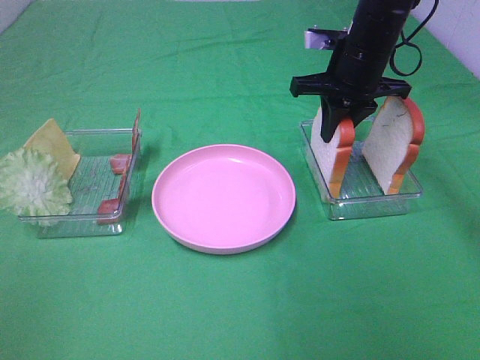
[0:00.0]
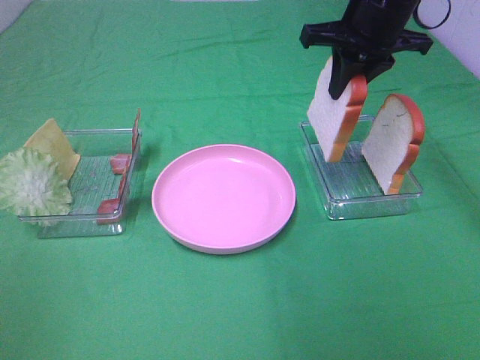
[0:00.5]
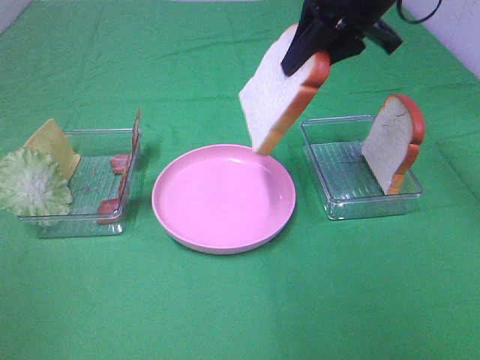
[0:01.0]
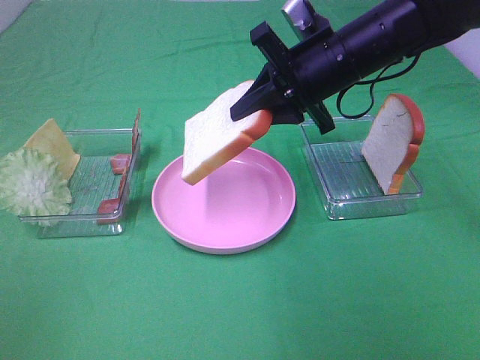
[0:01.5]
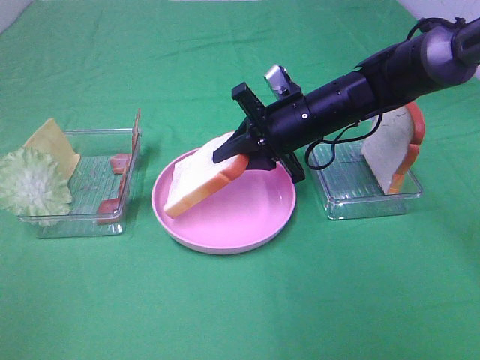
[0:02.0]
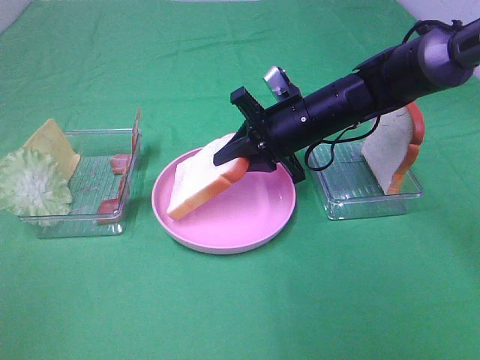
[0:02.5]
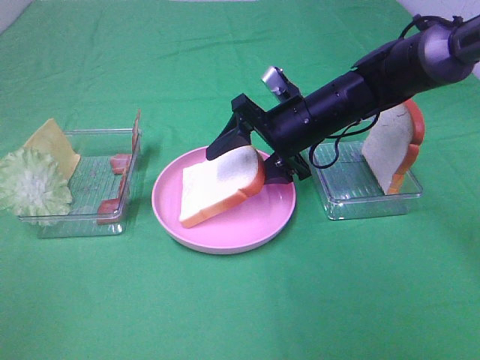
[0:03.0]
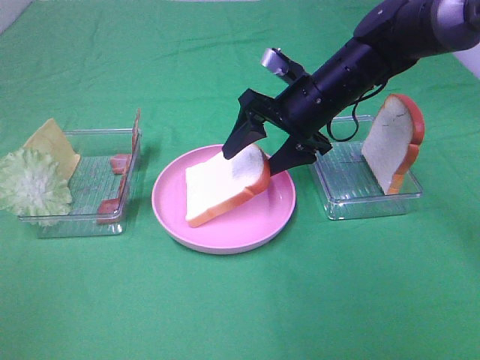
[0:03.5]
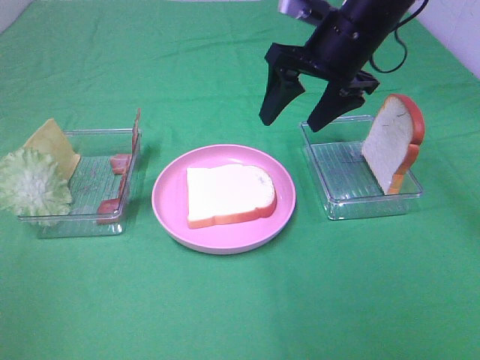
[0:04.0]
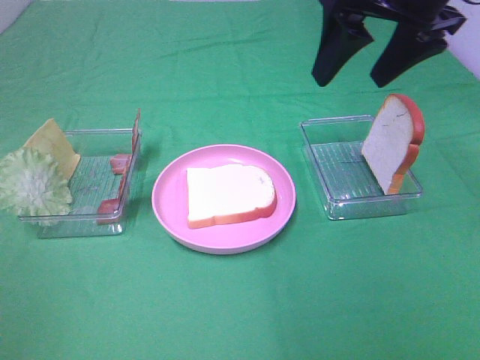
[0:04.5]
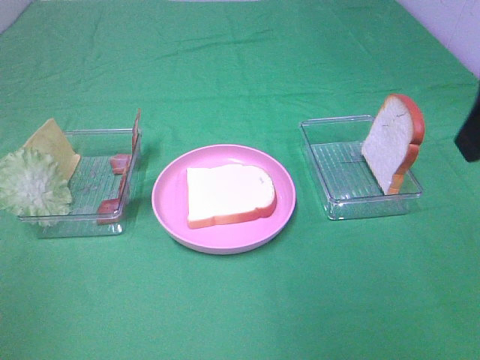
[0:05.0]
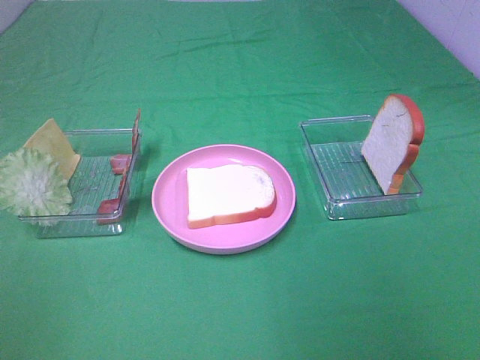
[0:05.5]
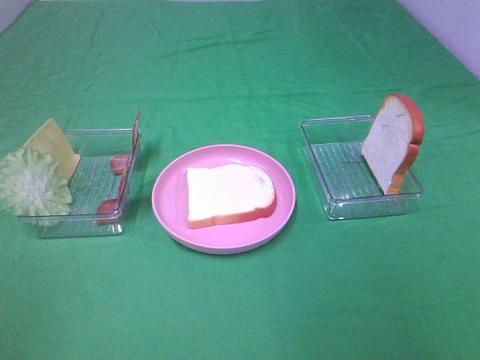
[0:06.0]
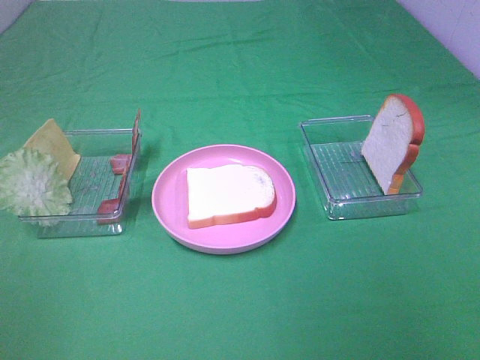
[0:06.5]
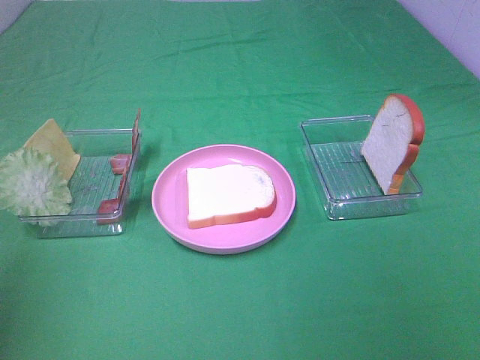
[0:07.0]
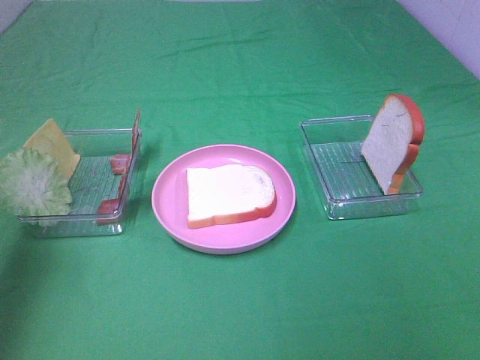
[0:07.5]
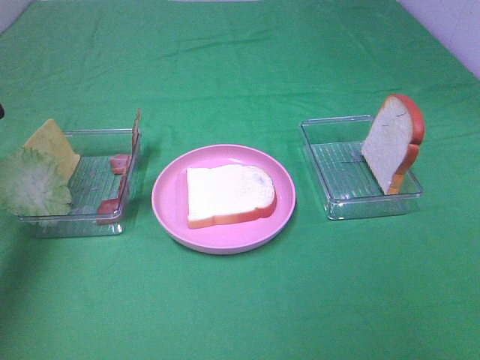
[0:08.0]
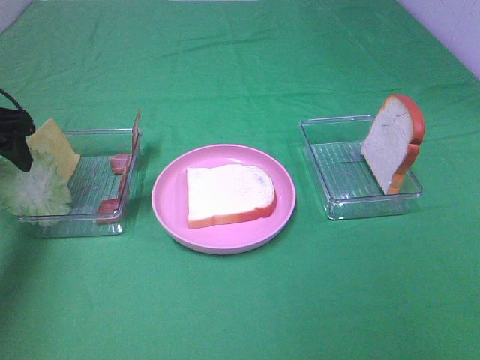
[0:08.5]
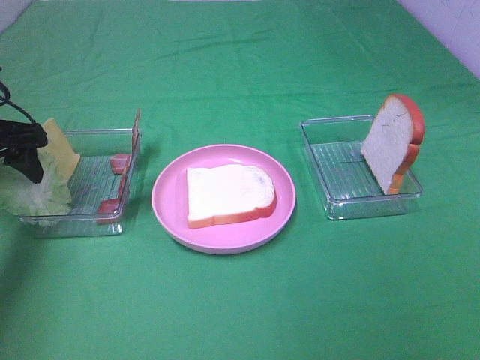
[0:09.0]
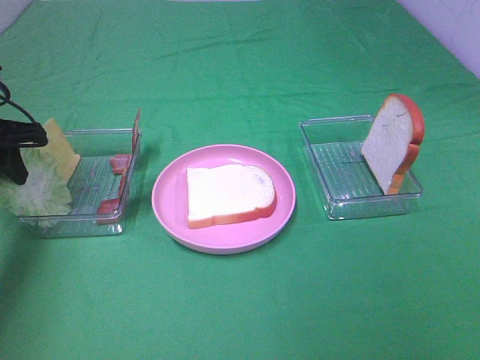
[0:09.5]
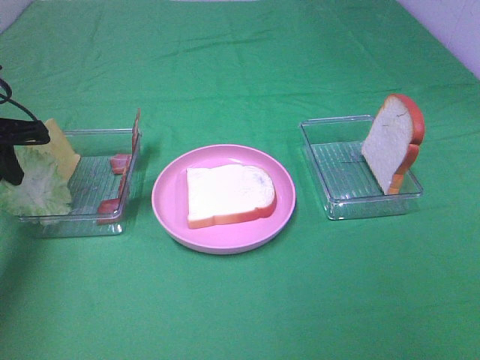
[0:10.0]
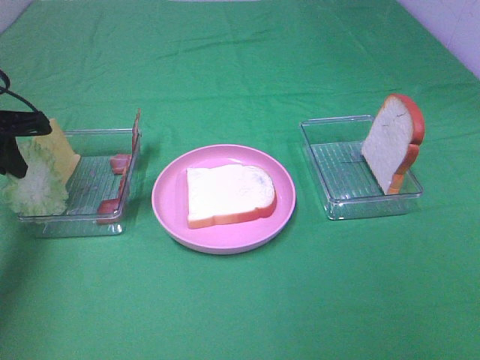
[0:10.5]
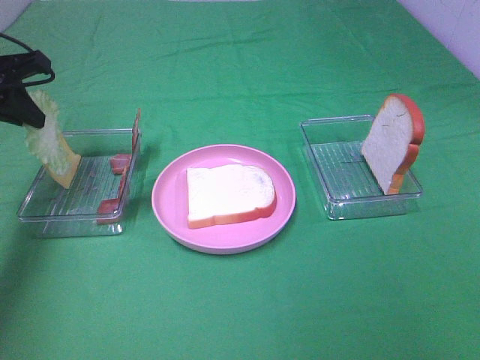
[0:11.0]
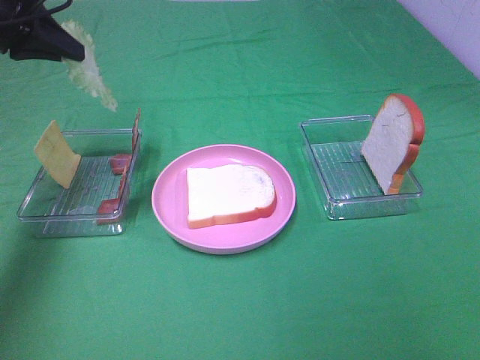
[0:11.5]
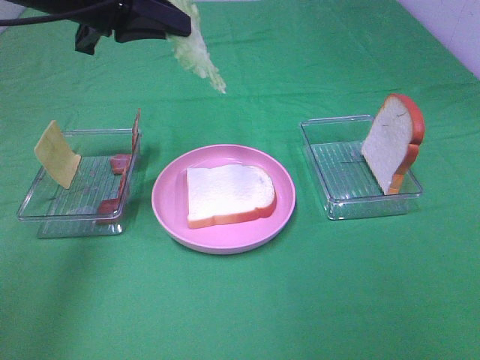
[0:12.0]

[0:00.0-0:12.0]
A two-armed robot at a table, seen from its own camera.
Task of the whole recording: Make sandwiches.
Step, 0:00.5 to 0:03.5: Right hand:place the bread slice on the plate.
Step, 0:04.0 to 0:10.0: Left hand:grab the lettuce slice.
0:00.0 to 0:02.0: The right gripper travels downward, to the left and backward by approximately 10 cm.
0:02.0 to 0:04.0: The right gripper is displaced upward by about 10 cm, and opens up.
0:04.0 to 0:06.0: The right gripper heads backward, covering some 40 cm.
0:06.0 to 0:08.0: The left gripper travels forward by some 35 cm.
0:08.0 to 0:10.0: The left gripper shifts about 5 cm downward, and closes its fingers.
0:10.0 to 0:12.0: The left gripper is displaced to the right and upward by approximately 20 cm.

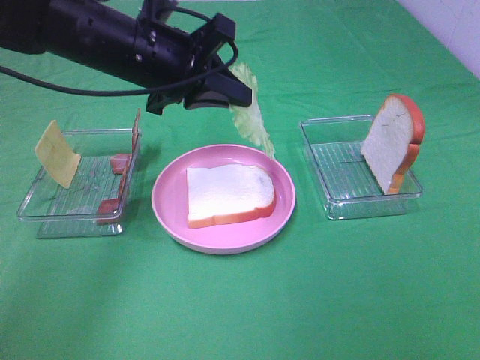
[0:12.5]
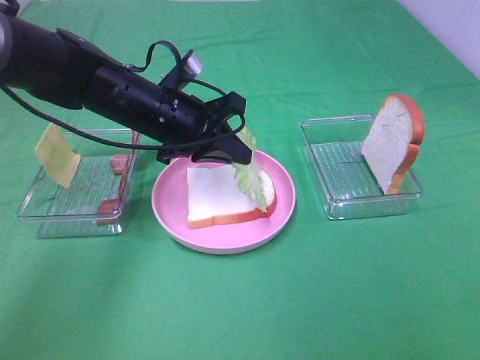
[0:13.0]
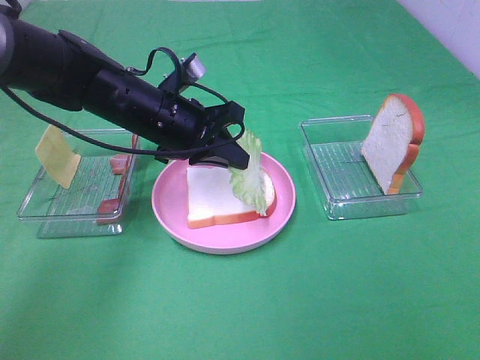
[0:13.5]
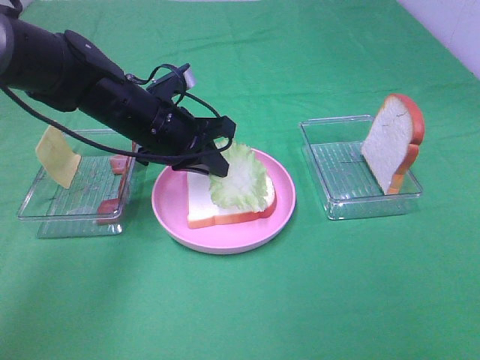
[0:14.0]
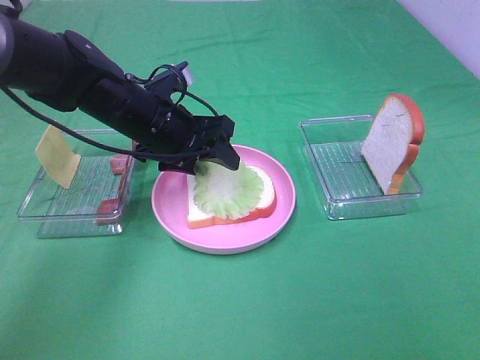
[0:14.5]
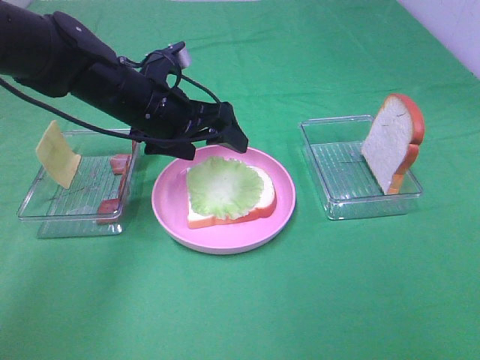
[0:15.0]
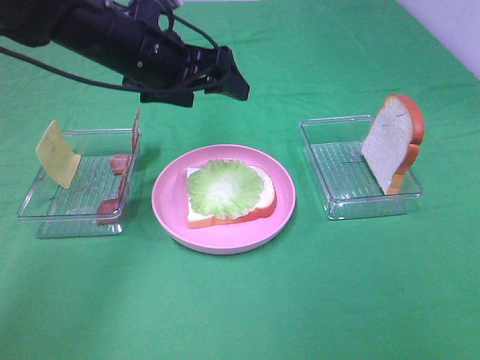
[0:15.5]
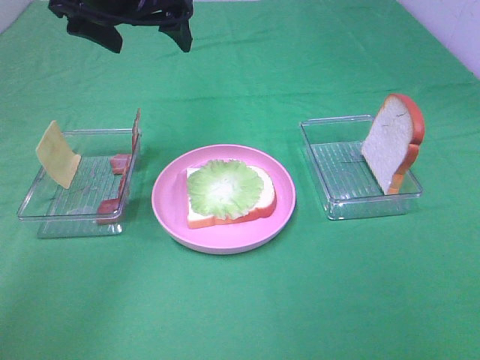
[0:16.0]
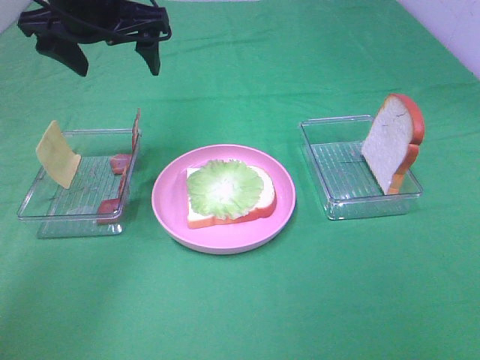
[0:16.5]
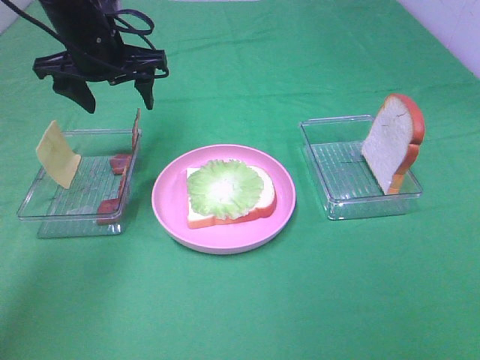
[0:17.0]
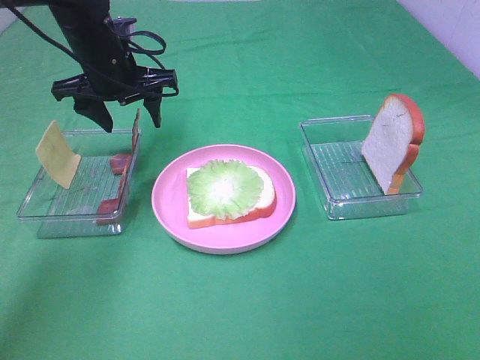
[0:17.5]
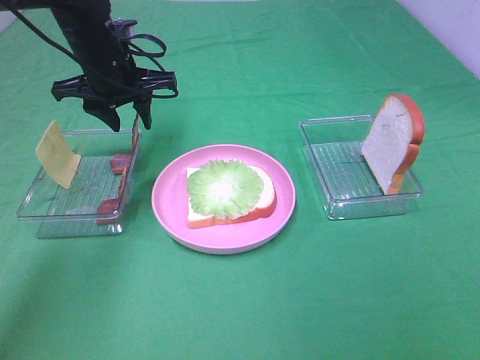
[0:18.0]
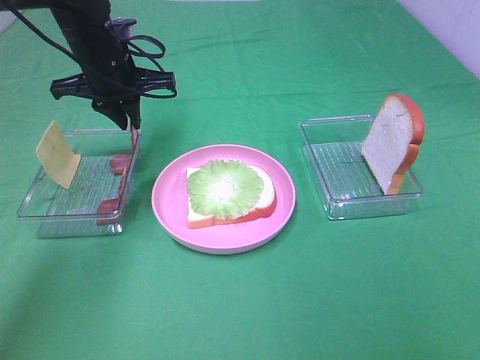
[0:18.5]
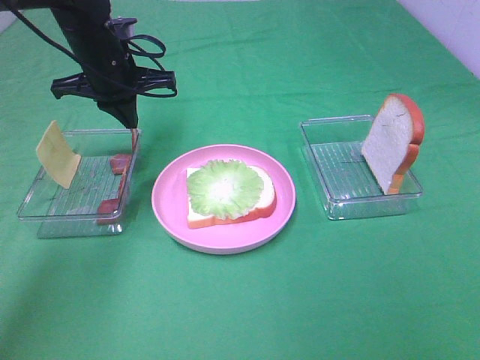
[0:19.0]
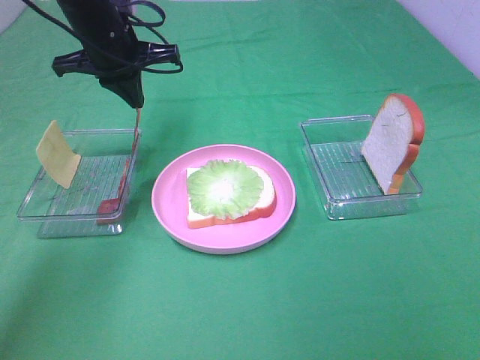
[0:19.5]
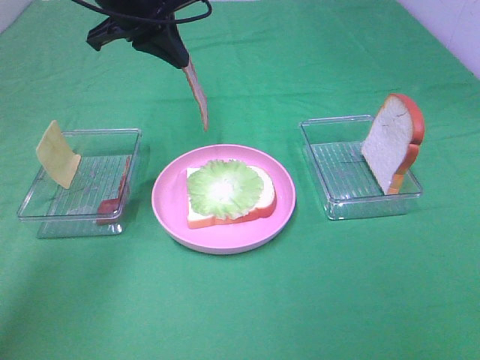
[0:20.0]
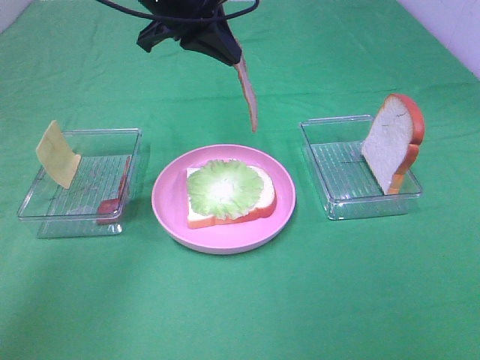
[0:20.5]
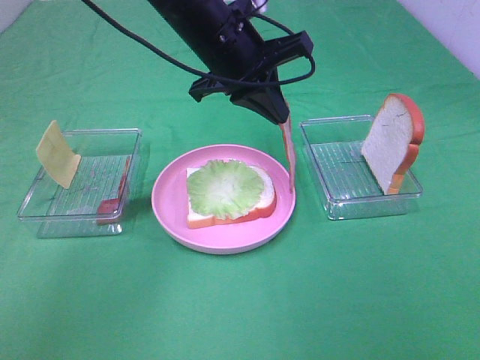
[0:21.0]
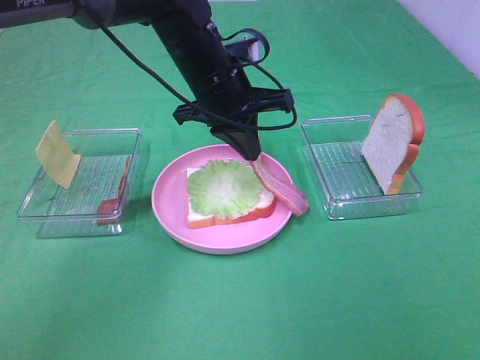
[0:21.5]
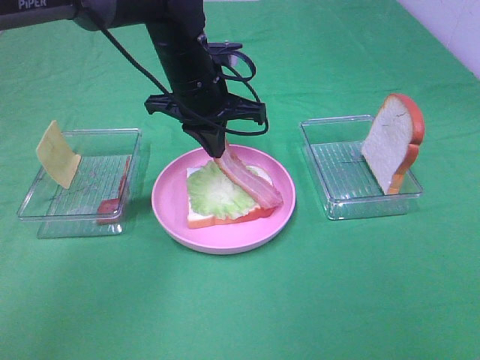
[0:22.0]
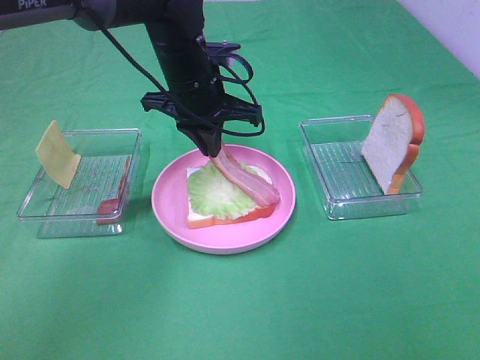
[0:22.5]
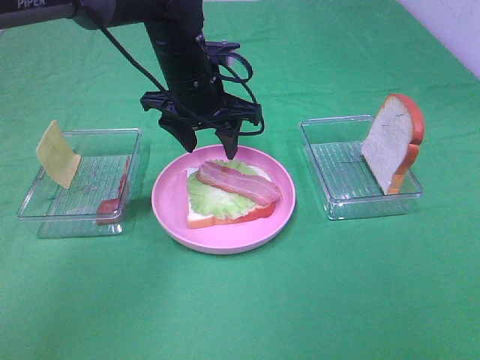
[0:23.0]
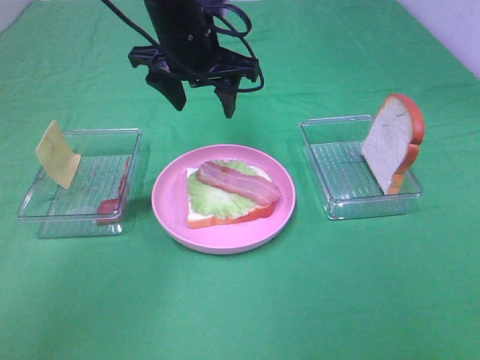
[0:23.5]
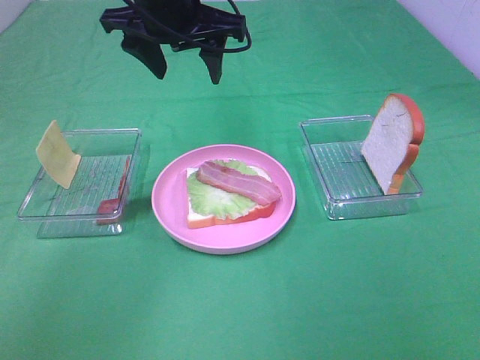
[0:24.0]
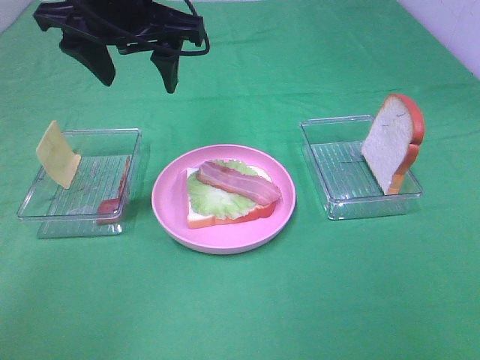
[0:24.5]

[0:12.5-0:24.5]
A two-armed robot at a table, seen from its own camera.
Task of the whole recording: Make sandwiches.
Step, 0:12.5 to 0:15.0: Left hand:place the lettuce slice on the bread slice.
Step, 0:15.5 to 0:18.5: Left hand:grab the bacon.
Step, 0:19.0 to 0:22.5: Left hand:place bacon on lettuce slice.
0:12.5 to 0:14.5: The left gripper moves downward, approximately 10 cm, and opens.
0:14.5 to 0:16.5: The left gripper travels upward by approximately 15 cm.
0:16.5 to 0:18.5: The left gripper travels downward by about 10 cm, and closes up.
0:18.5 to 0:20.5: The left gripper heads upward and to the right, covering about 15 cm.
0:20.5 to 0:22.5: The left gripper is displaced downward by roughly 10 cm.
0:22.5 to 0:24.5: The left gripper is displaced upward, to the left and backward by some 15 cm, and opens its fingers.

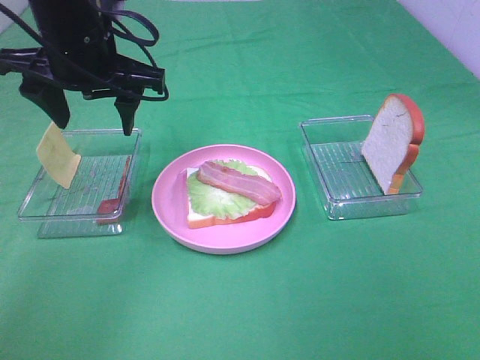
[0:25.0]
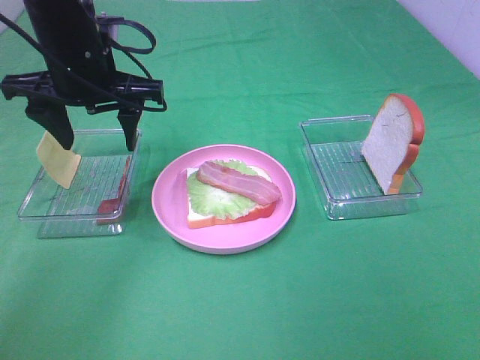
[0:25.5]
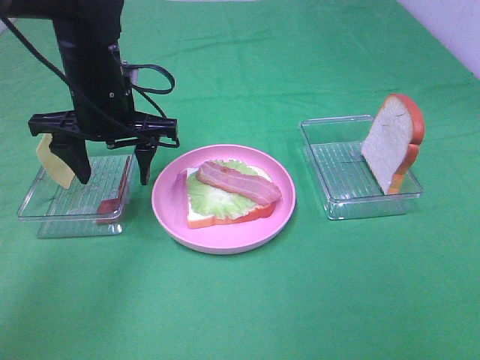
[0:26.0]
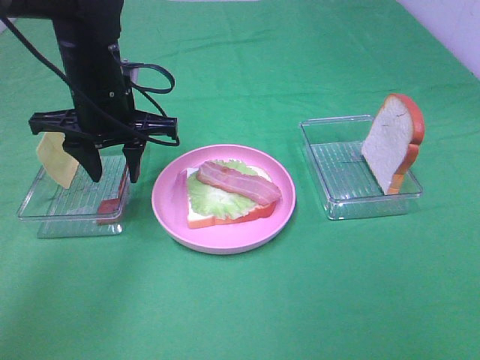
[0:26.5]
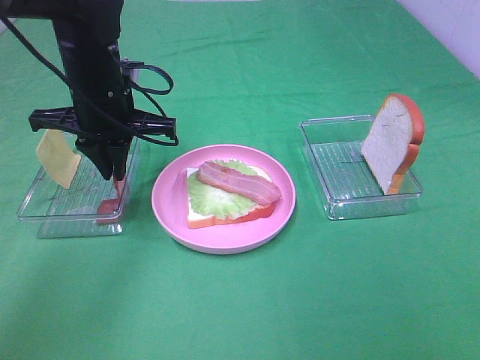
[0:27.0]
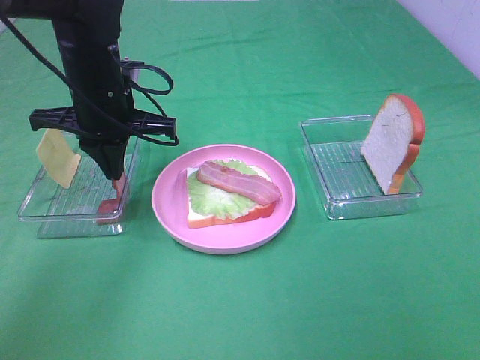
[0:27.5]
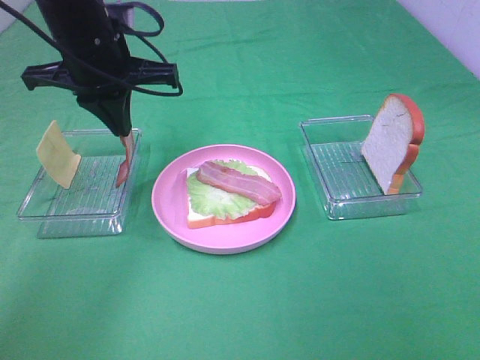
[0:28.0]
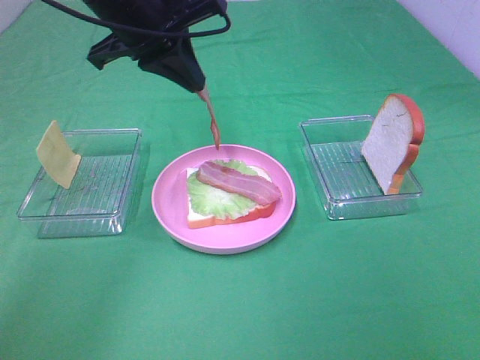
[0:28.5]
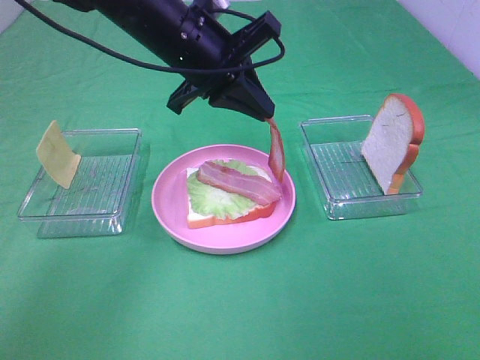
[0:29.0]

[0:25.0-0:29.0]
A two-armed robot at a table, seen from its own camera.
Task of the whole recording: Make sandwiches.
Step, 0:25.0 to 0:27.0: Left hand:grab the bacon.
0:25.0 to 0:27.0: The left gripper goes roughly 5 cm downward, and closes its fingers.
0:27.0 to 0:29.0: The left gripper travels to the right and upward by some 10 cm.
